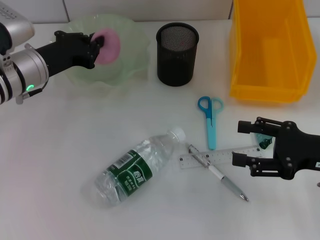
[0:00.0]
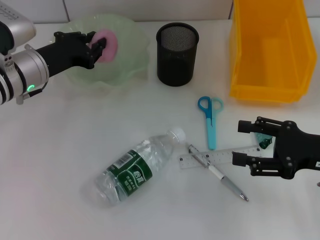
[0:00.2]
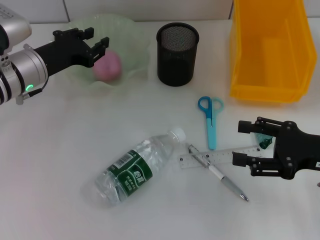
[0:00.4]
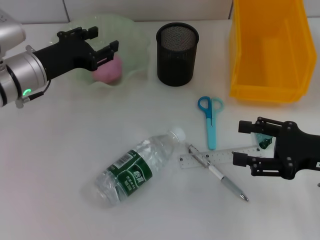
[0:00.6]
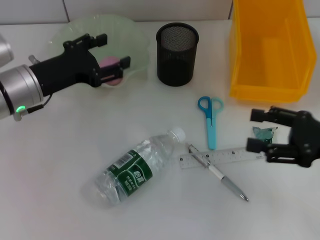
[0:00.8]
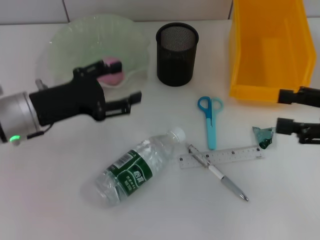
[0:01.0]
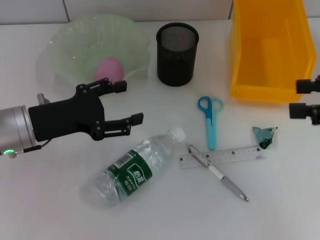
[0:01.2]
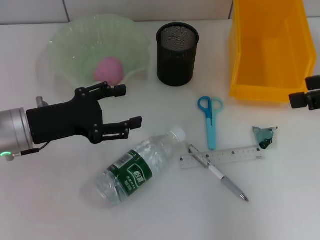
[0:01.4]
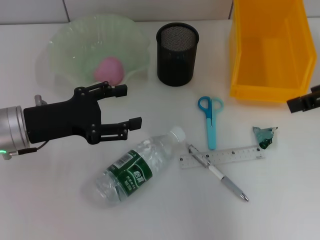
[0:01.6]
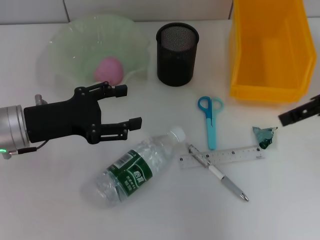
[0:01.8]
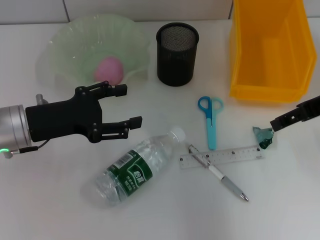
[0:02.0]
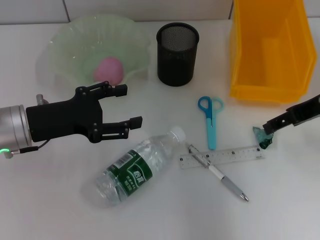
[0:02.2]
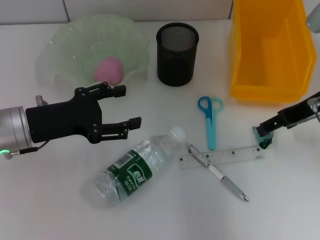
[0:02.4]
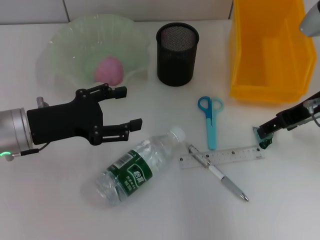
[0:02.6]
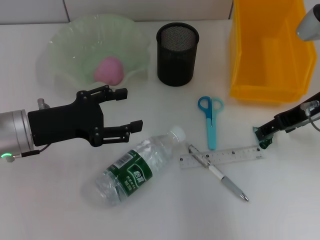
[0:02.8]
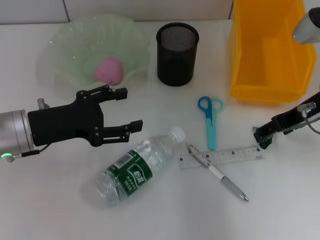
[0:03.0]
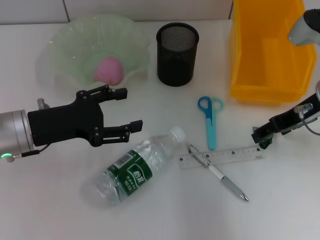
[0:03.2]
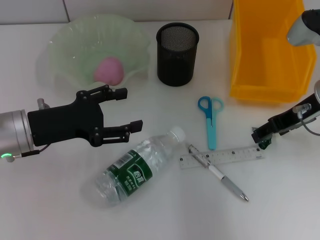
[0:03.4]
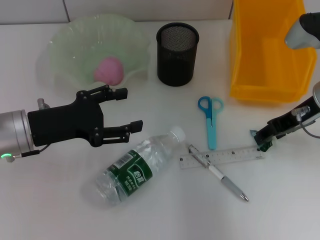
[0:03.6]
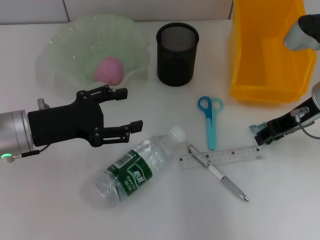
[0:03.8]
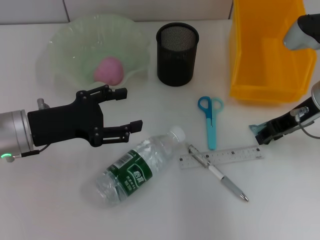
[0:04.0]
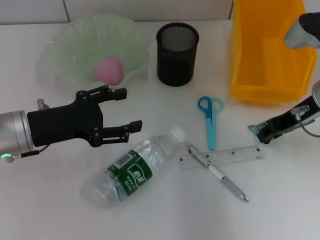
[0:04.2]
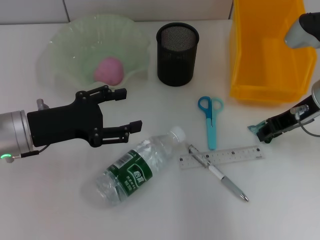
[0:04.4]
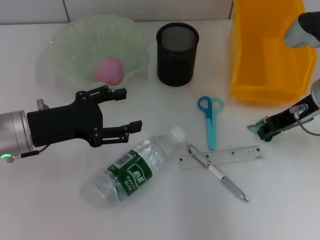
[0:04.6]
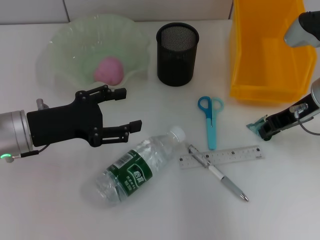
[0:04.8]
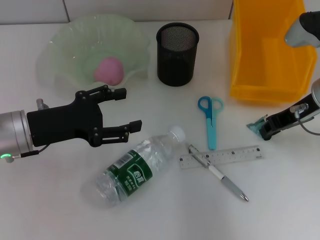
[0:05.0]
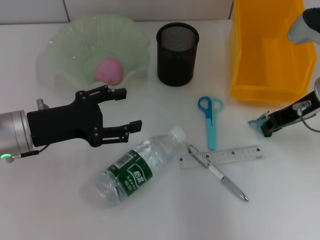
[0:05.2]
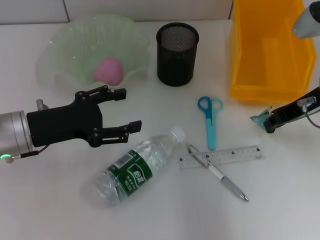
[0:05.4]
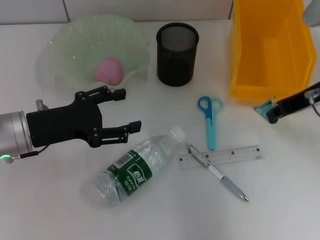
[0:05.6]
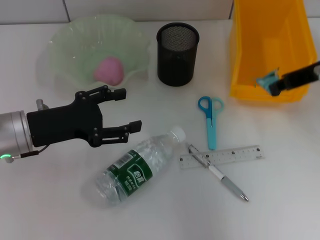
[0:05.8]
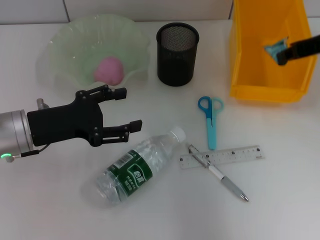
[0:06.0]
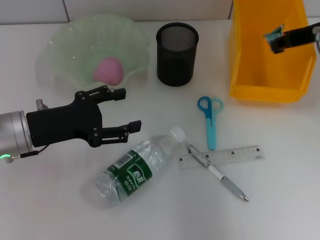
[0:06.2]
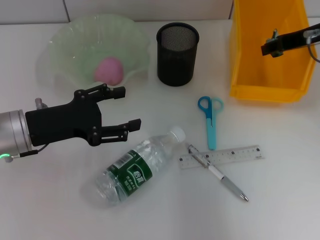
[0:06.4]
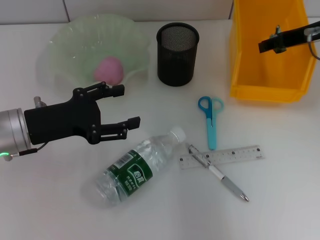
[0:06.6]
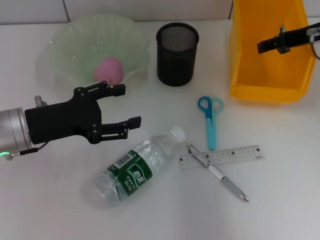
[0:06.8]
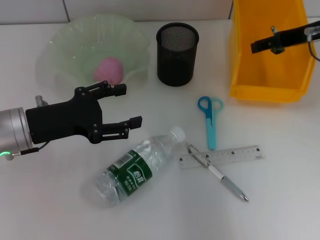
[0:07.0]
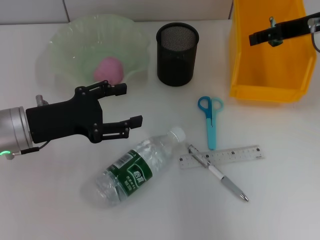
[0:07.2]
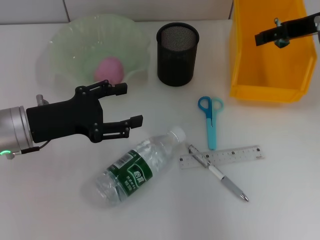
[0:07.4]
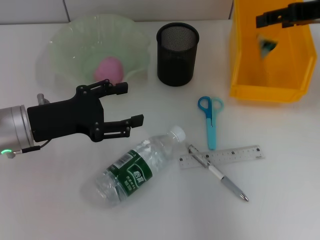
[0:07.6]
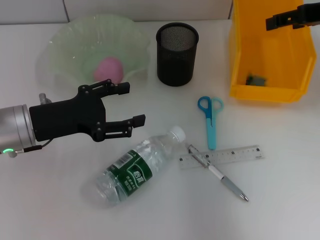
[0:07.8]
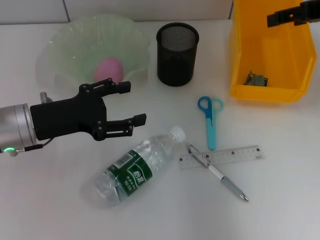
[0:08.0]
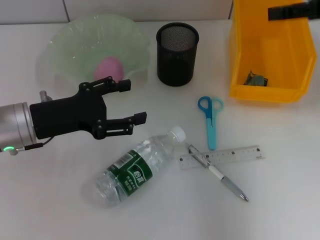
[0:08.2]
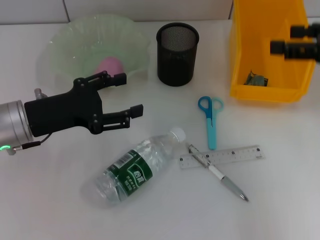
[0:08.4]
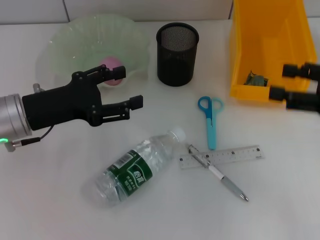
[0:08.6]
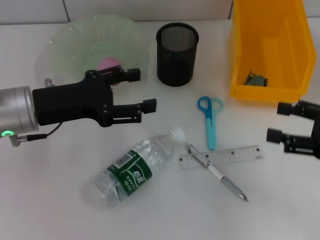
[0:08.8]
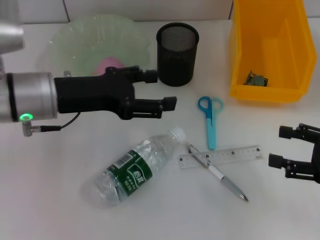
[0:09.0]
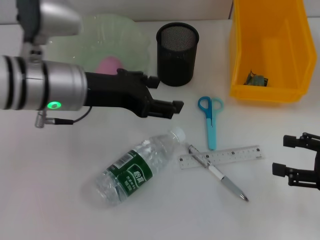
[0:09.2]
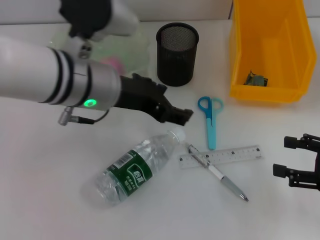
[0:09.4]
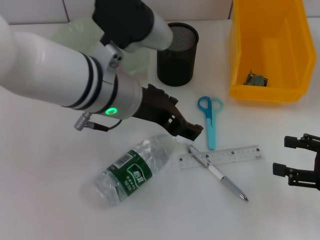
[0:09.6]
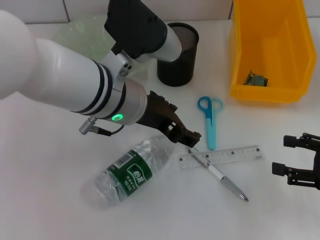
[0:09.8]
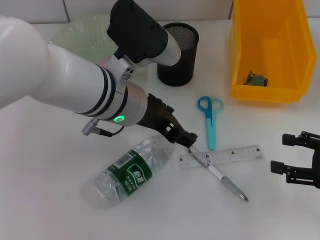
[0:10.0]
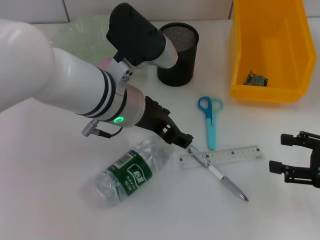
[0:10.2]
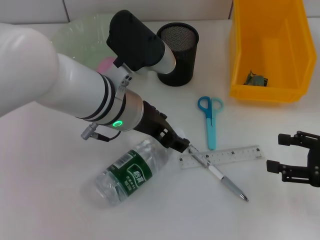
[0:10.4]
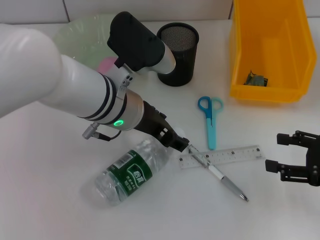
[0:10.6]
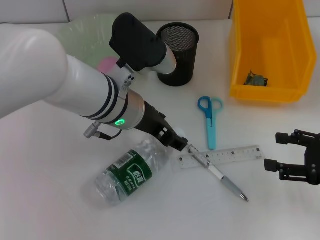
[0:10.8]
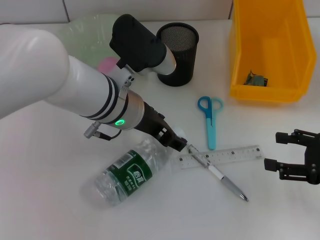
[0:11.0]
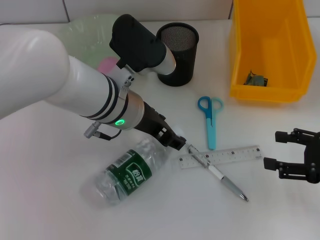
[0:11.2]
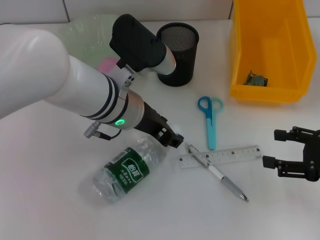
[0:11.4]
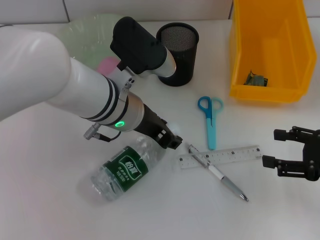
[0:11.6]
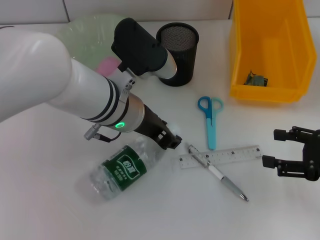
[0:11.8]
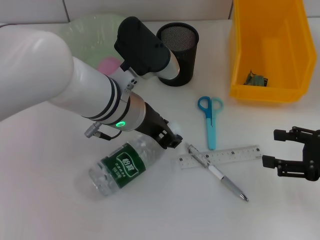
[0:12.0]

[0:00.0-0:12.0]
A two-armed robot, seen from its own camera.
Step, 0:00.4 to 0:05.0: Grab the plastic with the right hand.
Step, 0:05.2 to 0:07.8: Place the plastic into the trash can with the right hand.
Step, 0:08.0 to 0:12.0: Grab the water bottle with the left hand.
0:00.0 to 0:01.6: The left gripper travels backward by about 10 cm, and opens its fingers. Meanwhile the right gripper goes approximately 15 cm upward.
0:01.6 to 0:03.0: The right gripper shifts approximately 10 cm downward and forward.
0:03.0 to 0:04.4: The right gripper closes.
0:04.4 to 0:06.0: The right gripper moves upward, about 10 cm.
0:06.0 to 0:07.6: The right gripper opens its fingers.
0:07.6 to 0:09.0: The left gripper shifts about 5 cm upward, while the right gripper is displaced backward and downward by about 20 cm.
0:09.0 to 0:10.4: The left gripper goes some 10 cm to the right.
0:10.4 to 0:12.0: The left gripper closes its fingers.

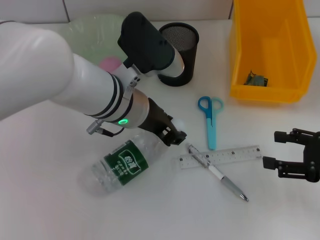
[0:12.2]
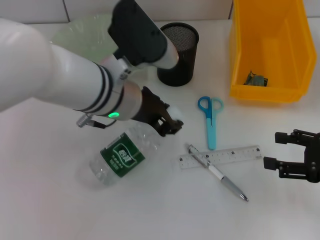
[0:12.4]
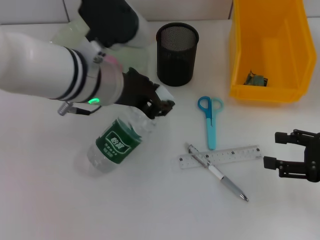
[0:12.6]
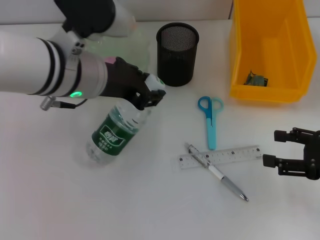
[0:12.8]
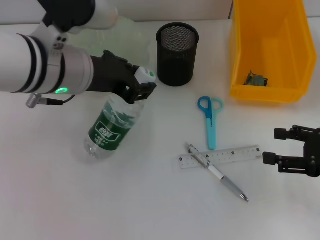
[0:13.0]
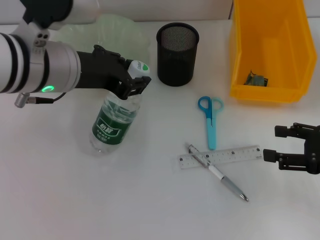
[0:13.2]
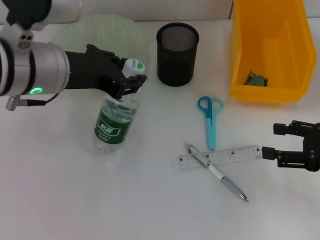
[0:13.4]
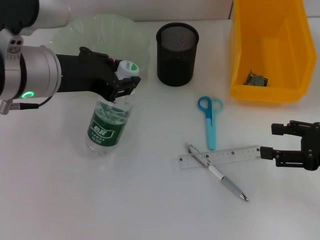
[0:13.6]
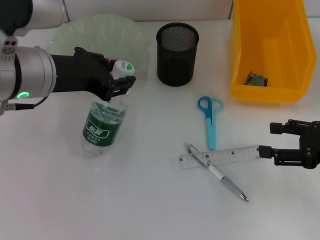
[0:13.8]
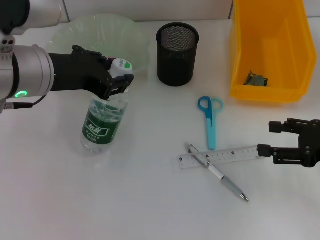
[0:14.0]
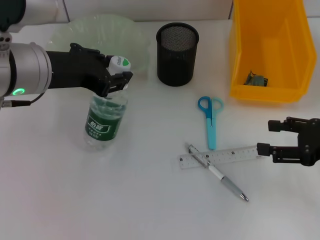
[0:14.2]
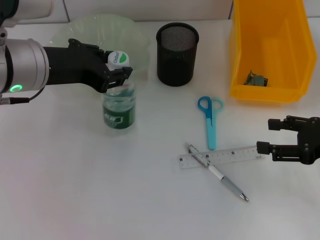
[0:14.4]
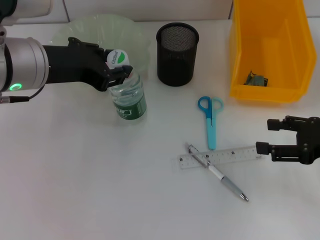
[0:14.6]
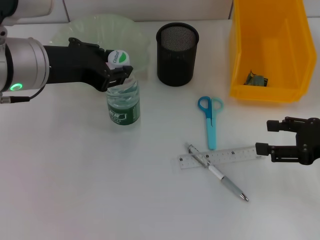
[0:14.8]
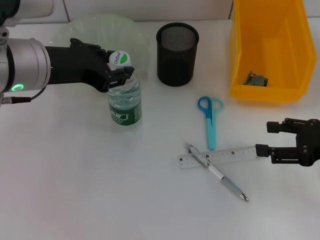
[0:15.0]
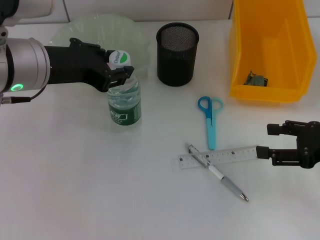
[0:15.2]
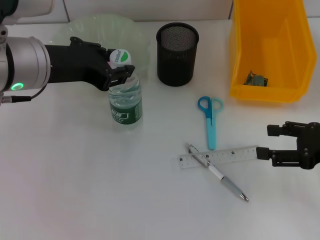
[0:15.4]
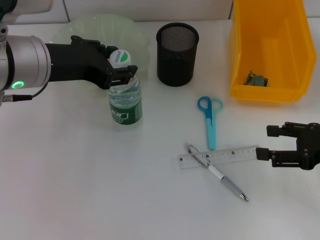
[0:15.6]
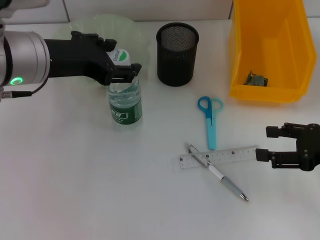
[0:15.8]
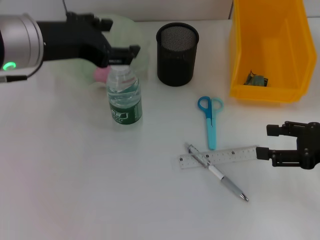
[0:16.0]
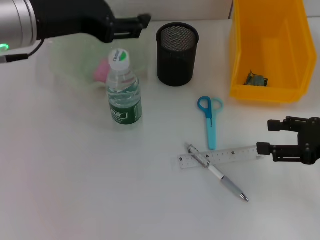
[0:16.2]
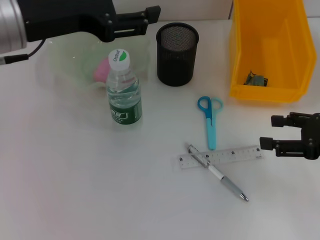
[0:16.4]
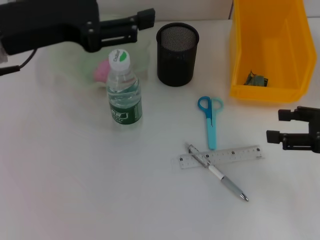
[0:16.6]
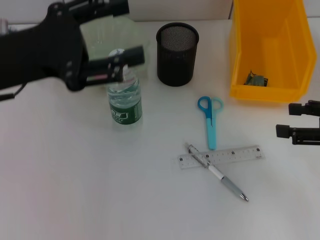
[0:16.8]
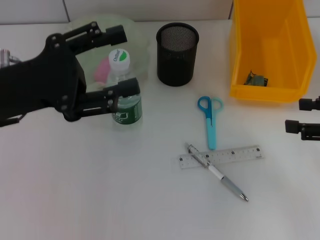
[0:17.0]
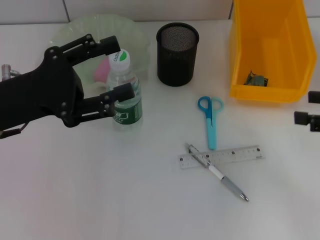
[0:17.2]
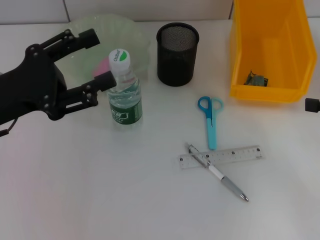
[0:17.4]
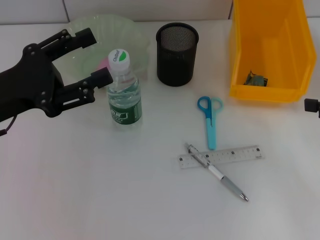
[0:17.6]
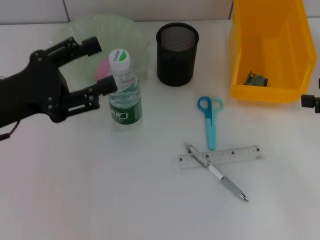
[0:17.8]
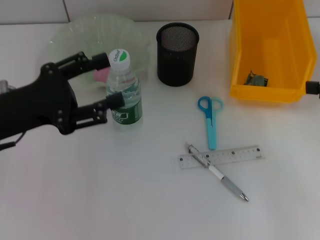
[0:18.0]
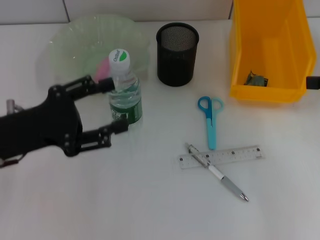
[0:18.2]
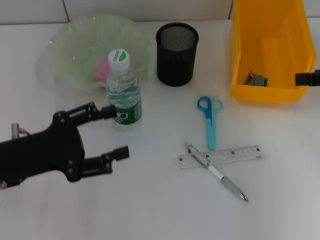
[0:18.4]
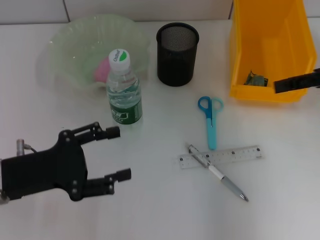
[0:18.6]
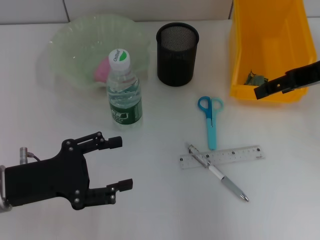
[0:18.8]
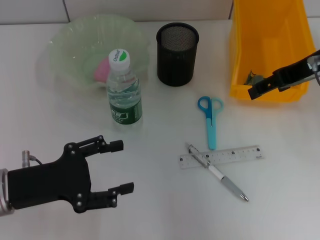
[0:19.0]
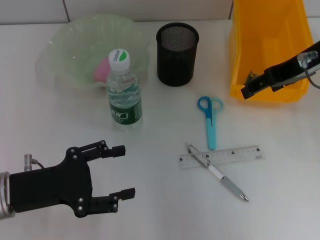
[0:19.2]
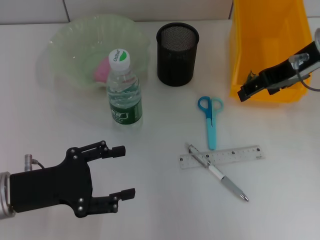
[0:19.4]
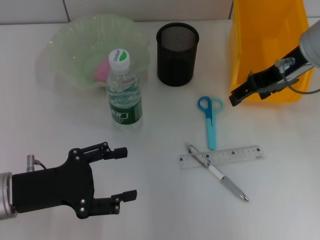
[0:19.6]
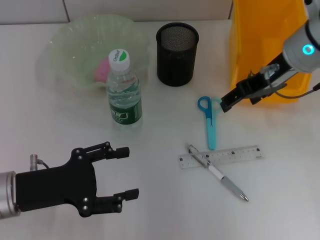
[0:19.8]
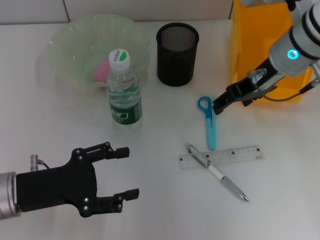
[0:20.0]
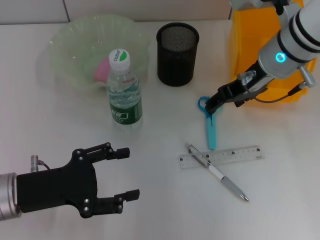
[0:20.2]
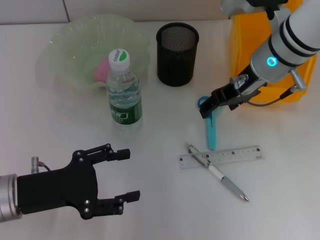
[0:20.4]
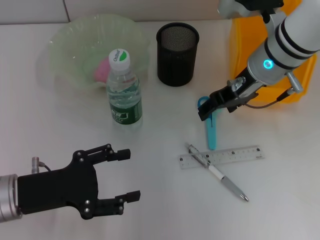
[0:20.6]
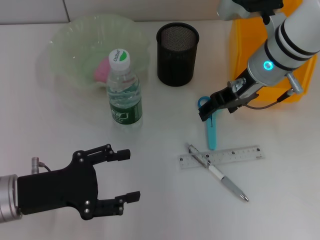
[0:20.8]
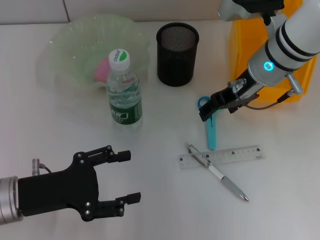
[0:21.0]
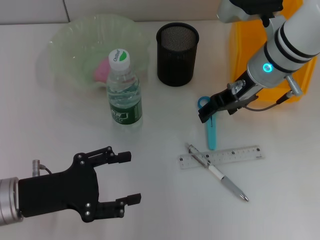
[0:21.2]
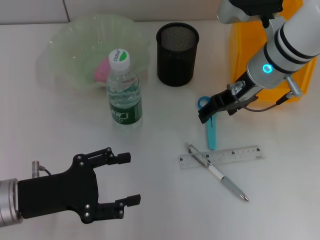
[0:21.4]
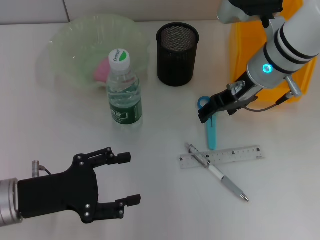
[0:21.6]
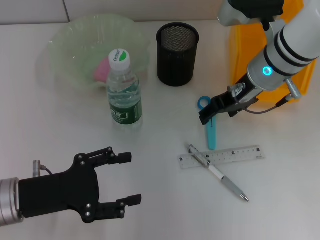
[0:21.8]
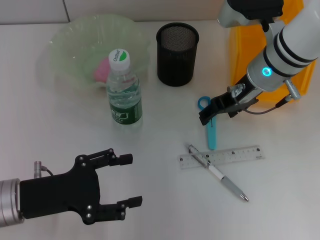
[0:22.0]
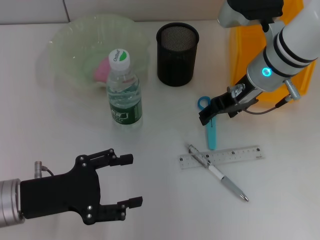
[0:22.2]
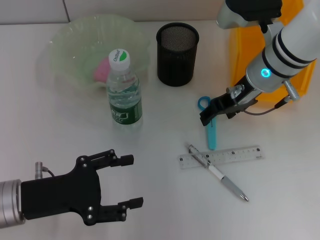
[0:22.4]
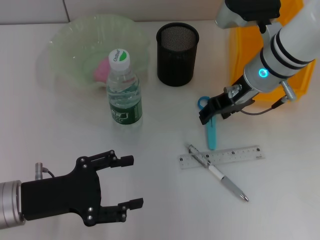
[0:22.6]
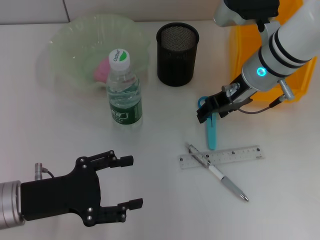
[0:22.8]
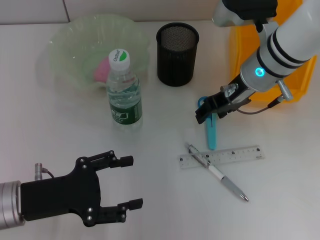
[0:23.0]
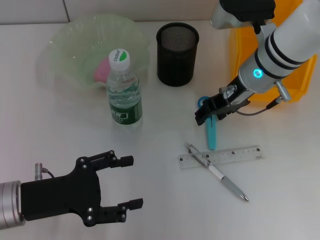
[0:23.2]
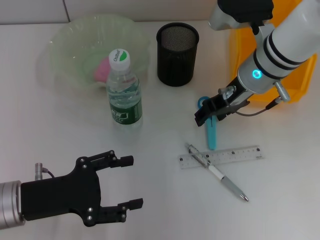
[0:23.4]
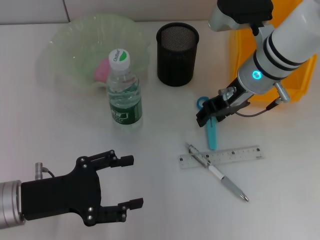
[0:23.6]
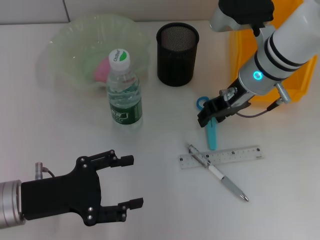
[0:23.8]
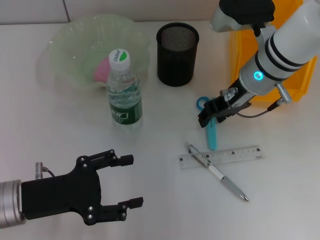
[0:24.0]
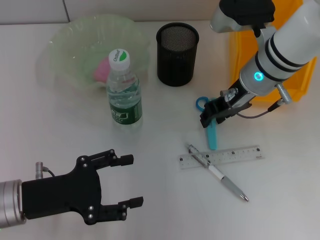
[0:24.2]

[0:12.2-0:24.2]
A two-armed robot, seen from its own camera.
Step, 0:12.2 to 0:15.6: Place the water bottle on the table with the left hand.
0:12.2 to 0:13.8: The left gripper heads to the left and upward, covering approximately 10 cm.
0:13.8 to 0:15.2: Neither gripper changes place.
0:15.2 to 0:16.6: The left gripper opens up.
0:16.6 to 0:18.2: The left gripper goes approximately 10 cm downward. The right gripper goes approximately 5 cm upward.
0:18.2 to 0:19.8: The left gripper is displaced downward by roughly 5 cm. The right gripper moves to the left and forward, approximately 20 cm.
0:19.8 to 0:21.2: The right gripper ends up approximately 5 cm from where it was.
0:21.2 to 0:22.6: Neither gripper changes place.
0:22.6 to 0:24.2: Neither gripper changes place.
